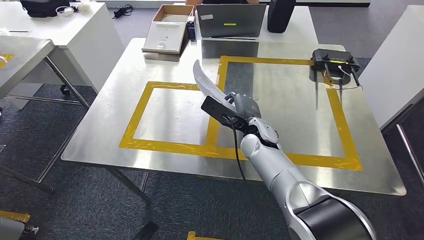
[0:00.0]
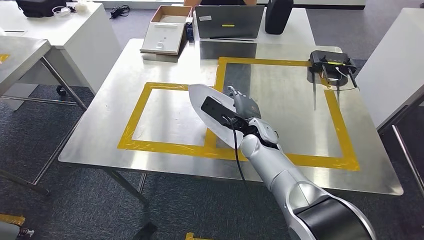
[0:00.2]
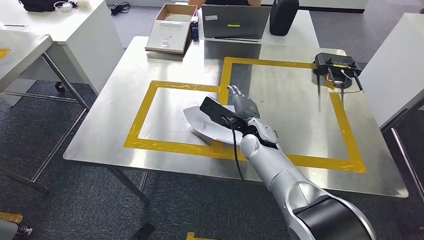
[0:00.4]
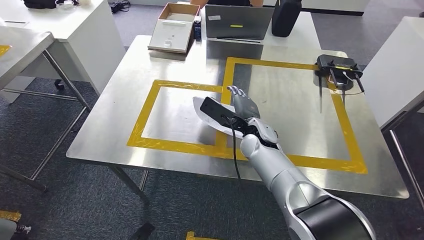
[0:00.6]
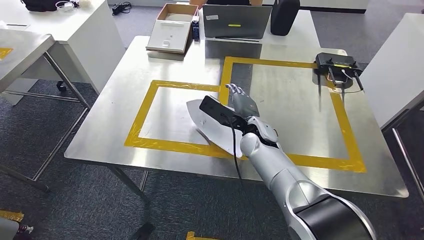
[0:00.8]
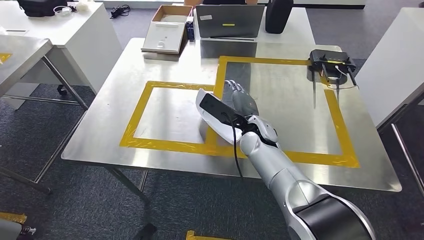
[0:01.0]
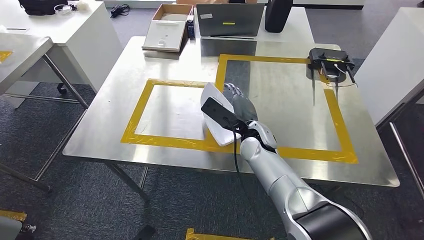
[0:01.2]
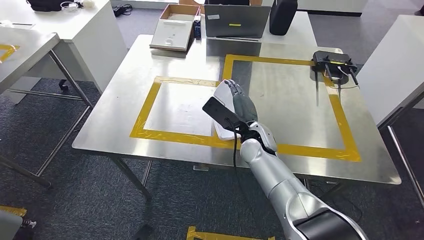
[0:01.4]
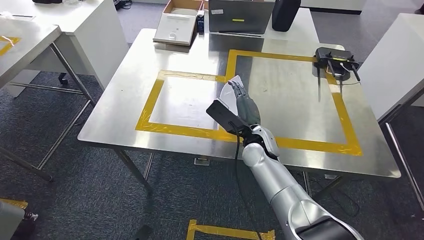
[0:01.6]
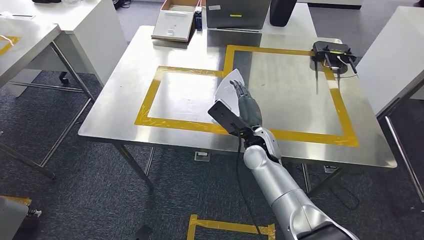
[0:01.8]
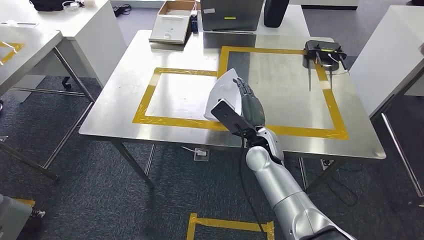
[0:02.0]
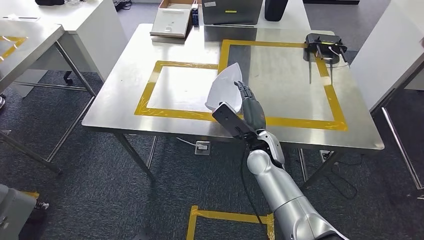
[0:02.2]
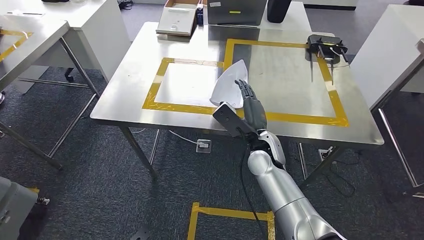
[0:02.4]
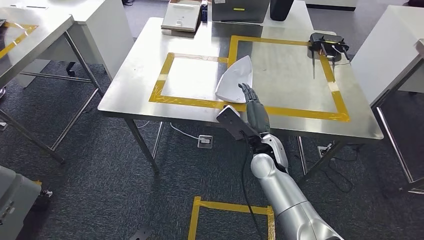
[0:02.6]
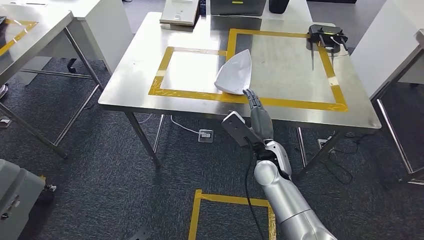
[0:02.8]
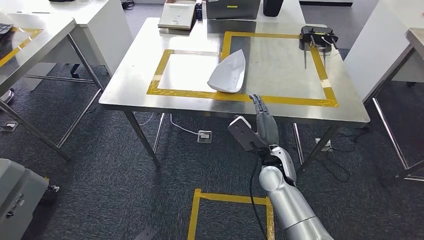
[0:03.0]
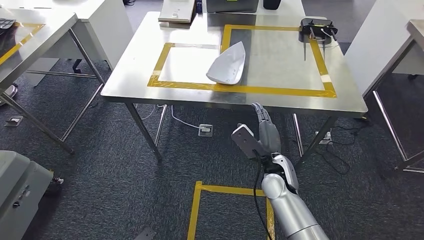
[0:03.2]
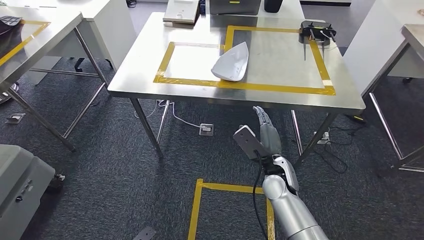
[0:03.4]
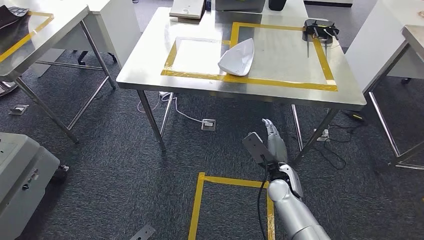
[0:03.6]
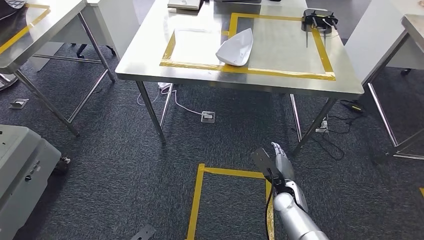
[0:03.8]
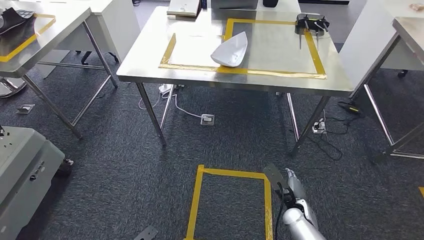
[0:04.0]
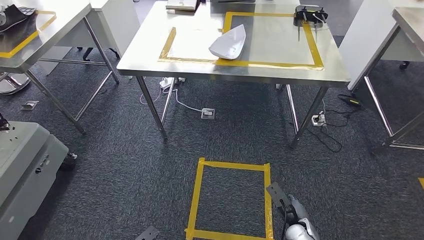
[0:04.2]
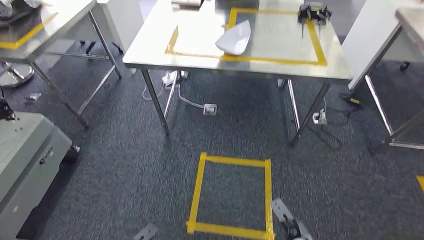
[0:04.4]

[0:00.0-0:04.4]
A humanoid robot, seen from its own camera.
Step, 0:00.0 to 0:02.0: Insert the small parts into the corresponding holes on the workbench.
Step, 0:02.2 to 0:04.4: Move to the initial position at the workbench.
